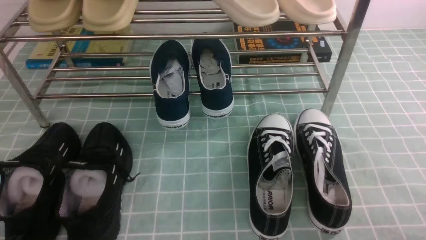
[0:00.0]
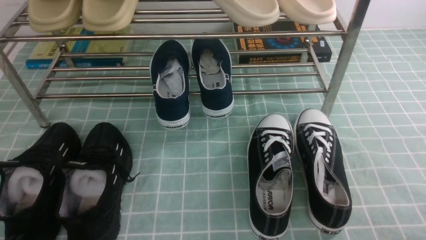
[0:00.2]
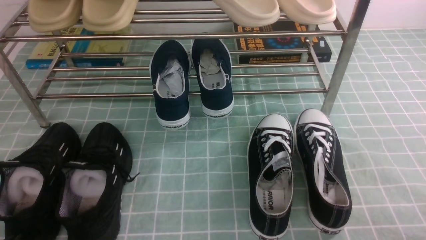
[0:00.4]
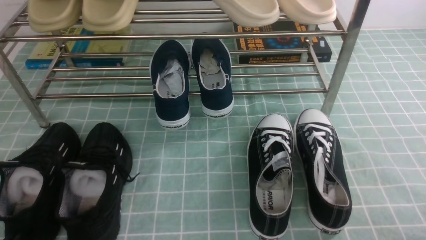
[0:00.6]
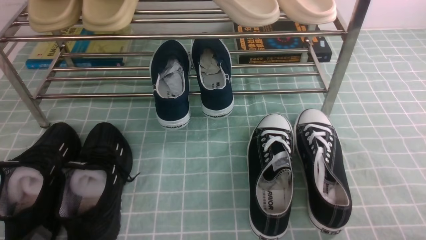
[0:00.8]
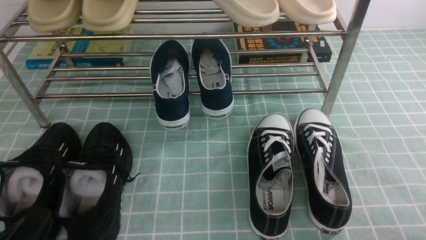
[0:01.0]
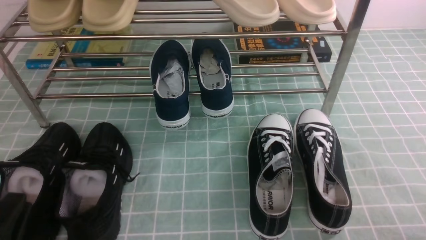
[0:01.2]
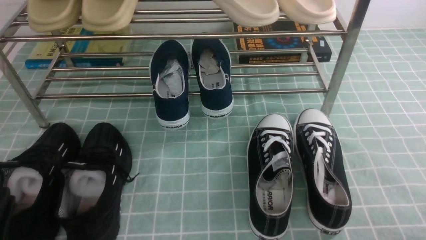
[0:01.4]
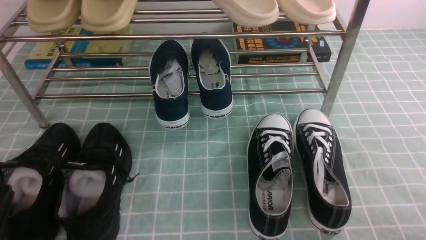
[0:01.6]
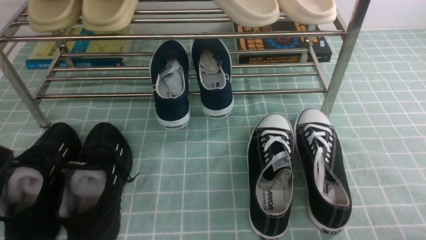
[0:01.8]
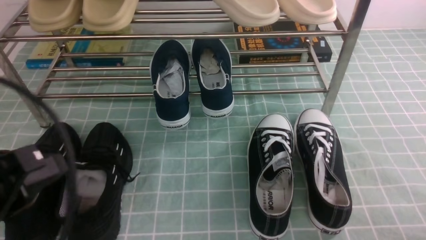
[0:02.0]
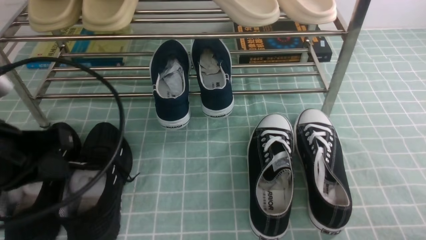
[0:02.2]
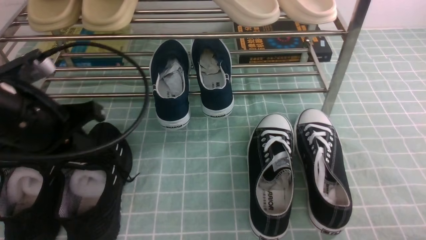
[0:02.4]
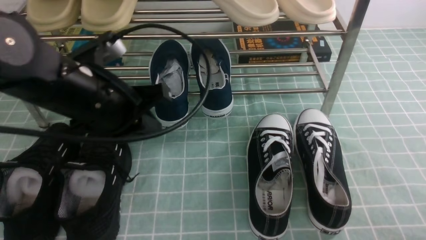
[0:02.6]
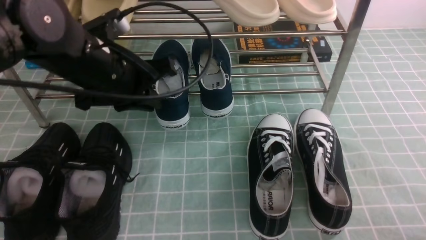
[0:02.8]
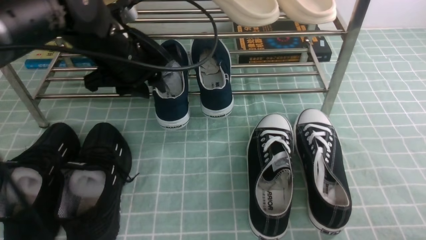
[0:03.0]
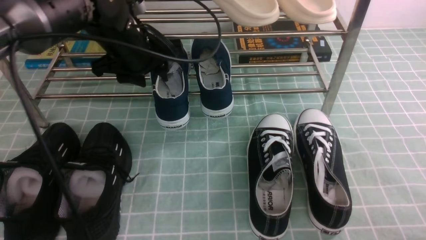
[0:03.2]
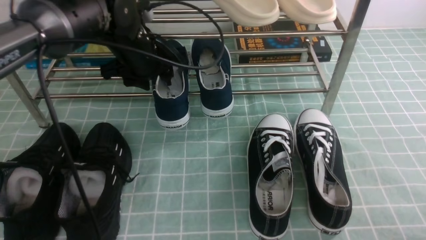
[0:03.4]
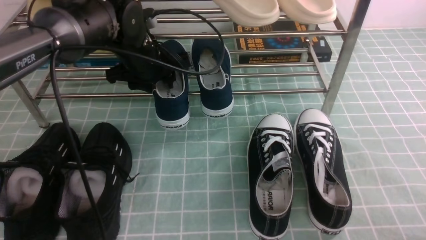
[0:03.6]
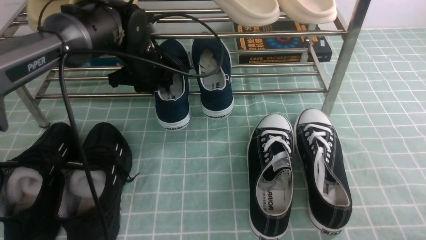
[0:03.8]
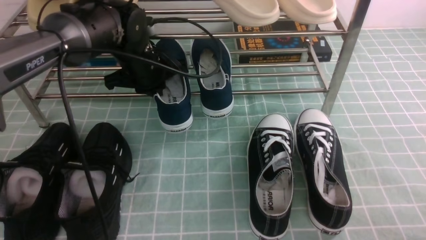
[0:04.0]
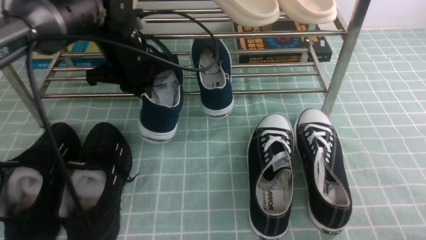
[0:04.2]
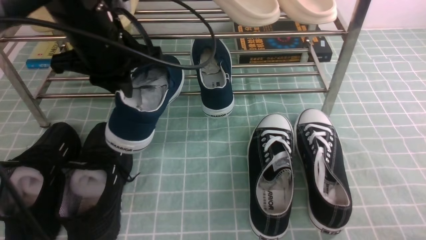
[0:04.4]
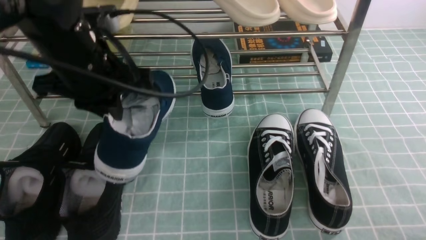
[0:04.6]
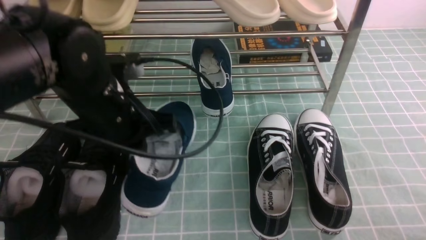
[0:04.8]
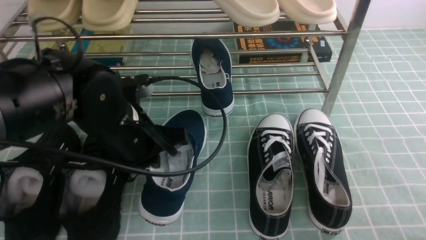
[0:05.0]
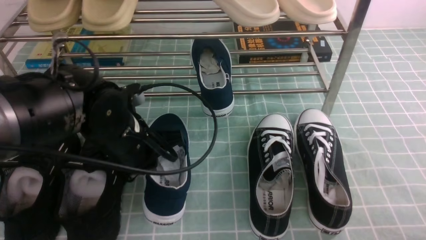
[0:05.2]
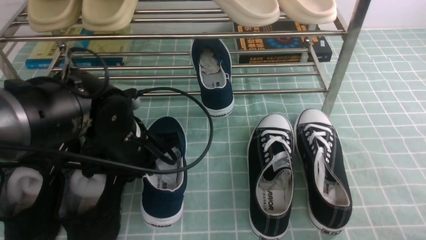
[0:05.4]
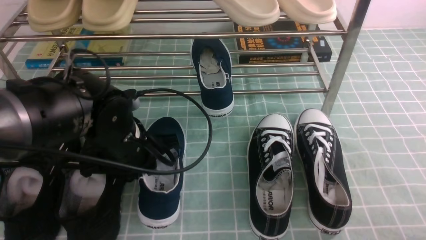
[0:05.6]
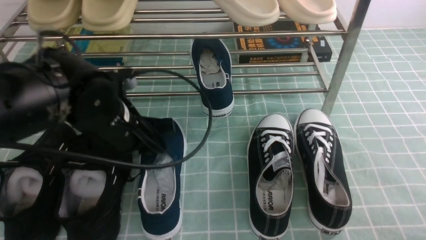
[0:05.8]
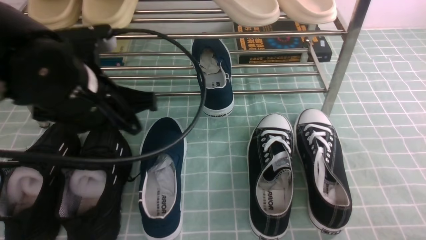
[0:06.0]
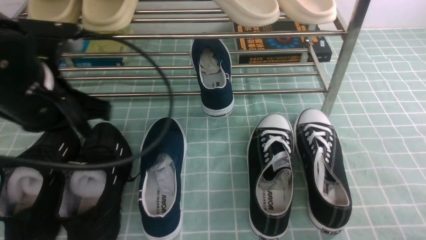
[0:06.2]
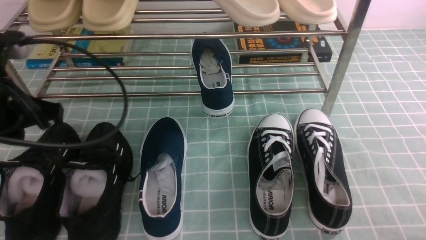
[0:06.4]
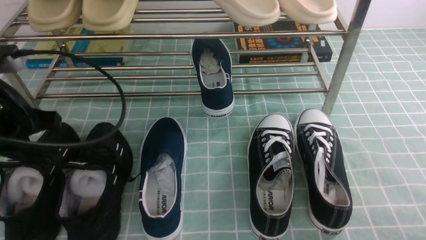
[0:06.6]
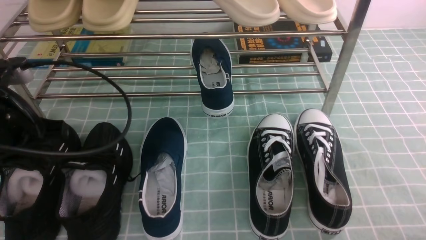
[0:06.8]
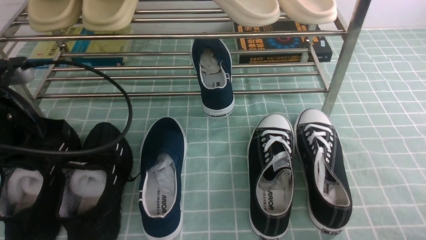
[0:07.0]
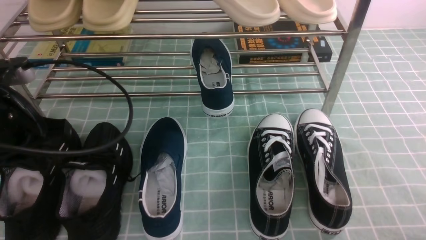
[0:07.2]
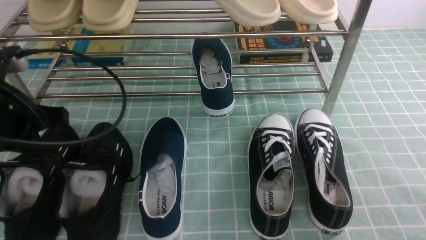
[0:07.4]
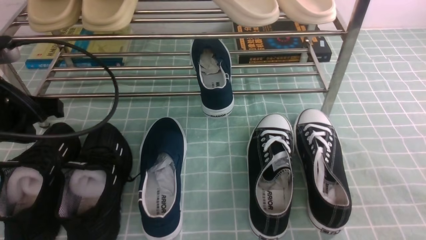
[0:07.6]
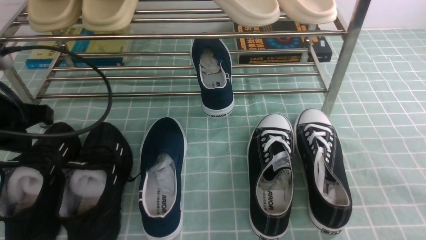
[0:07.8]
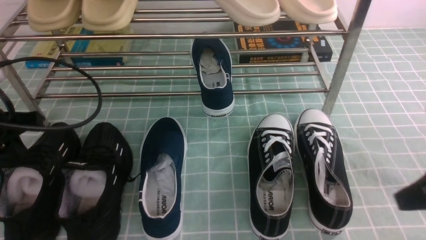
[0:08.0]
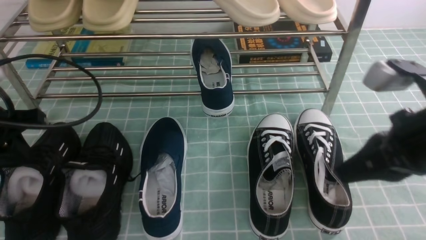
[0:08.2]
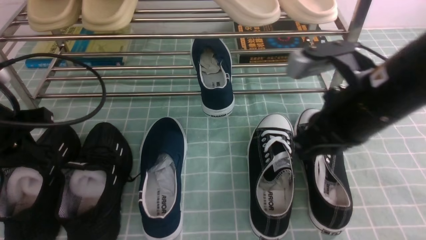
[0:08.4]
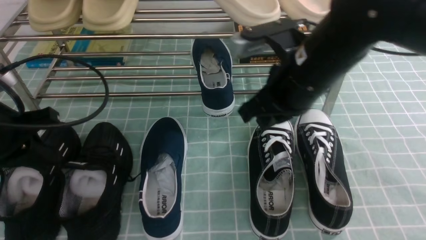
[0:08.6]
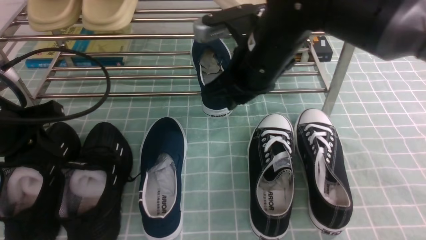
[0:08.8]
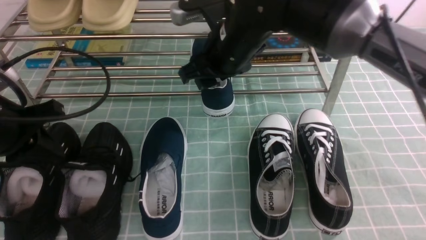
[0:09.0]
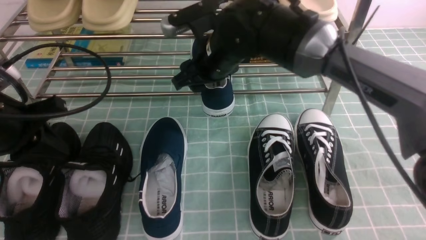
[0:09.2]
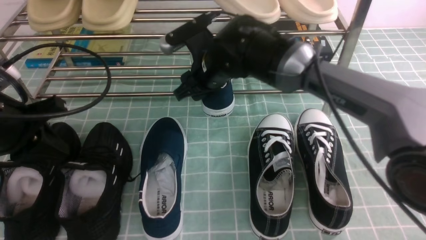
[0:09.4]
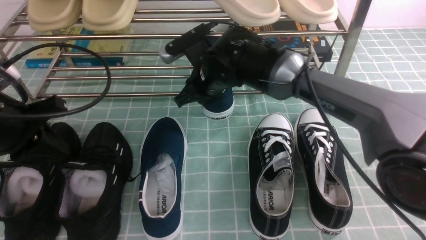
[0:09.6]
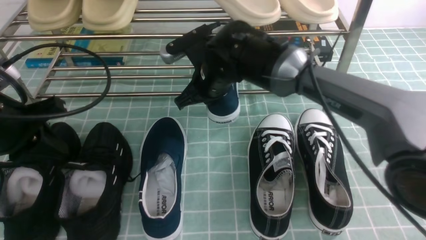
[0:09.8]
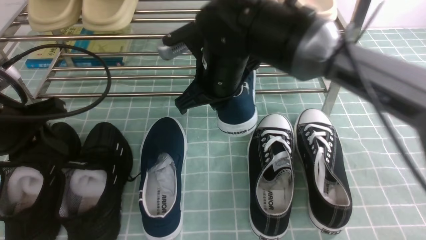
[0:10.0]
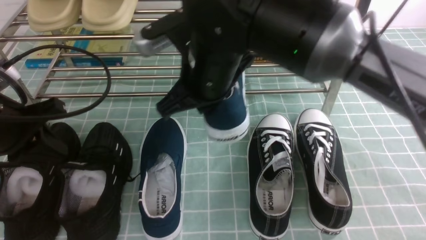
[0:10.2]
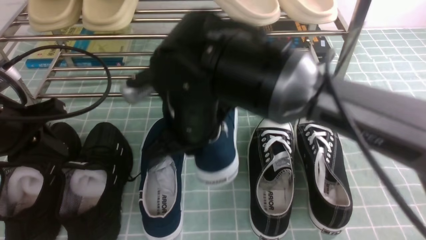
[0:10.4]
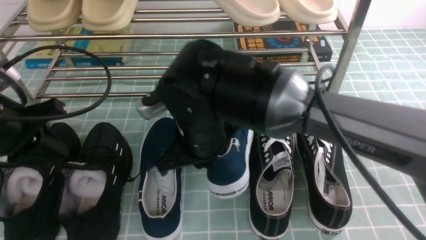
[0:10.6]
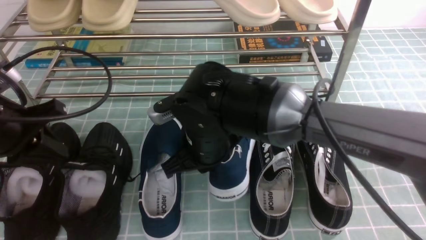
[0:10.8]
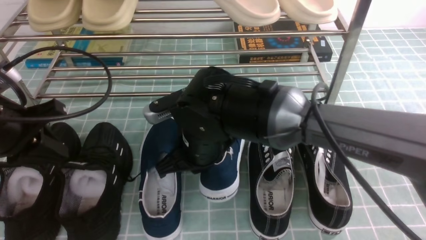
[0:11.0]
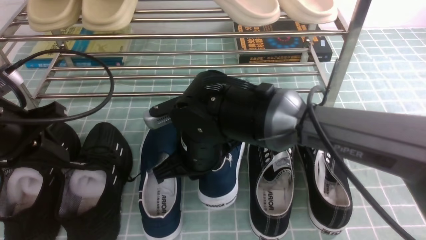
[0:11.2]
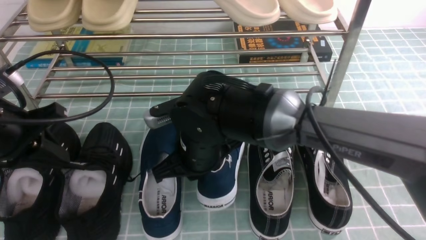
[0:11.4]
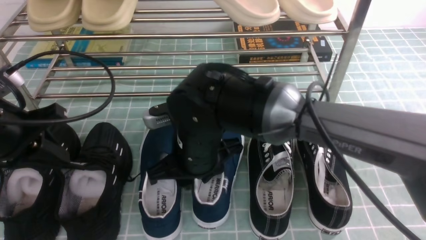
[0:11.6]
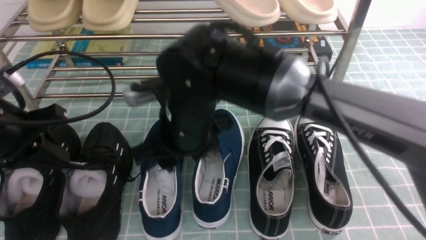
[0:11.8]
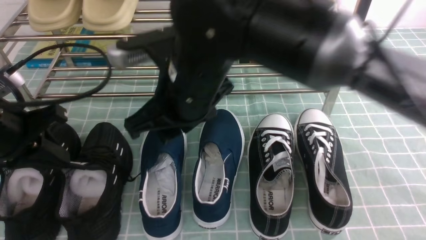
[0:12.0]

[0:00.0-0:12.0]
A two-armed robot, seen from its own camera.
Step, 0:00.0 to 0:04.0: use the left arm to clamp a shoe in the middle of the shoe rack.
Step, 0:04.2 to 0:05.8: Use your left arm to remove the clamped shoe from the shoe rack and put it down.
Step, 0:06.0 to 0:09.6: use the left arm to clamp a shoe in the middle of the shoe rack.
0:00.0 to 0:01.6: The left gripper heads upward, covering some 5 cm.
0:01.6 to 0:03.0: The left gripper is displaced forward and to the right by roughly 30 cm, and opens.
0:03.0 to 0:04.4: The left gripper moves roughly 5 cm forward and comes back, and closes up.
0:04.4 to 0:06.0: The left gripper shifts some 10 cm backward, travels downward and back again, roughly 10 cm each way, and opens.
0:06.0 to 0:07.6: The left gripper travels to the left by about 10 cm, and closes its fingers; the right gripper is displaced upward by some 10 cm, and closes.
0:07.6 to 0:09.0: The right gripper goes some 40 cm forward and to the left, and opens its fingers.
0:09.0 to 0:10.4: The right gripper is displaced backward and to the left by about 10 cm, and closes.
0:10.4 to 0:12.0: The right gripper is displaced upward by about 5 cm, and opens its fingers.

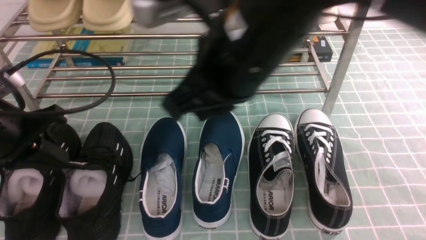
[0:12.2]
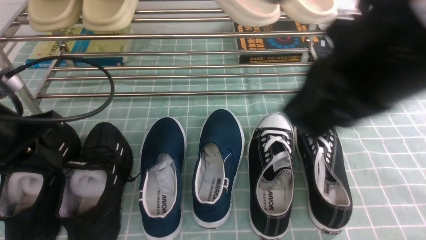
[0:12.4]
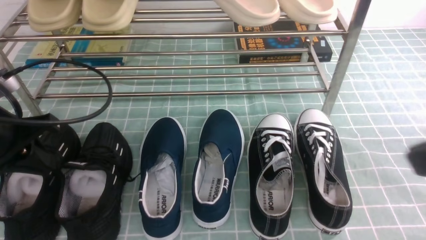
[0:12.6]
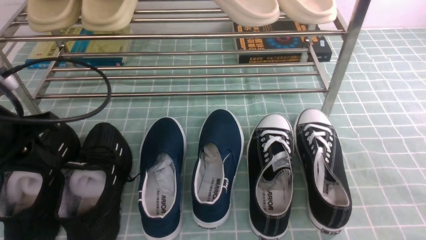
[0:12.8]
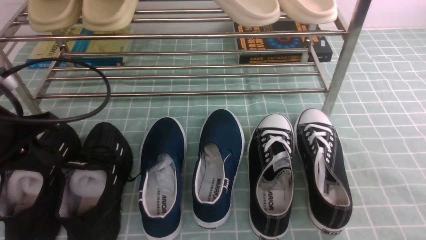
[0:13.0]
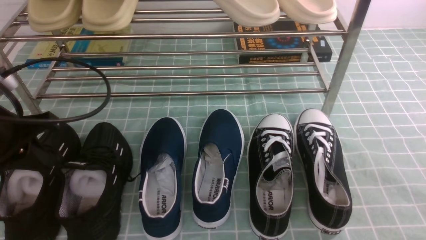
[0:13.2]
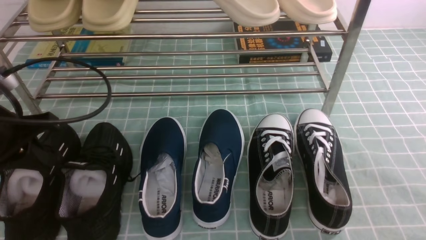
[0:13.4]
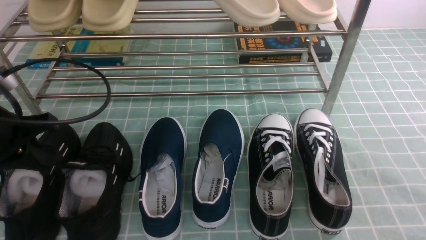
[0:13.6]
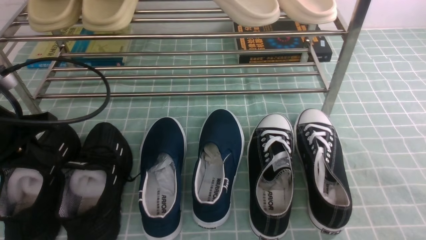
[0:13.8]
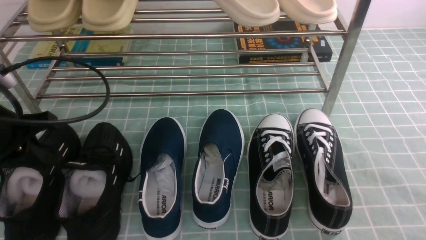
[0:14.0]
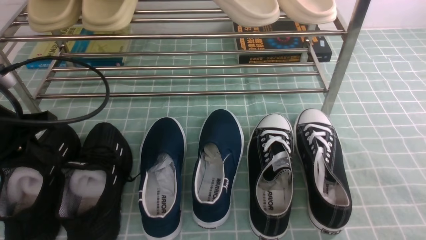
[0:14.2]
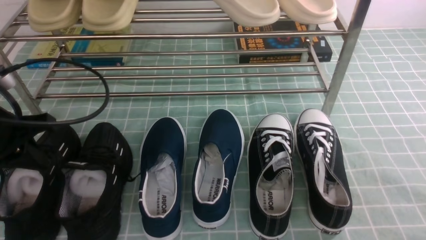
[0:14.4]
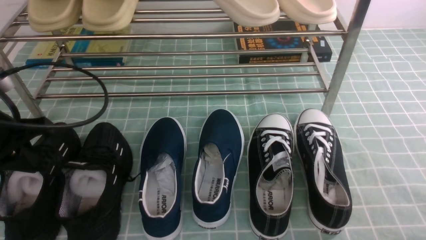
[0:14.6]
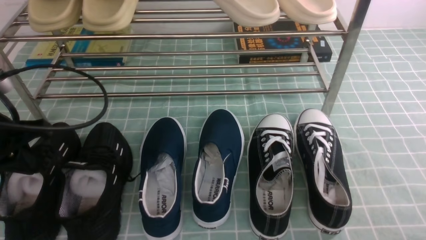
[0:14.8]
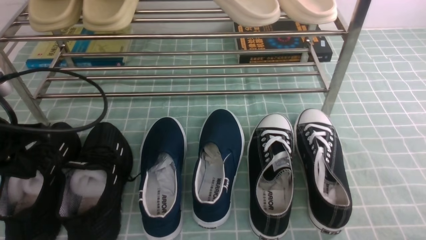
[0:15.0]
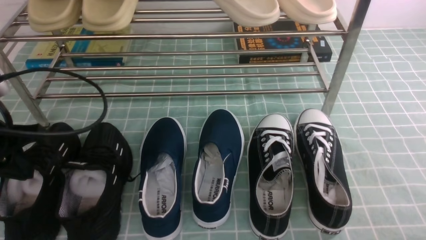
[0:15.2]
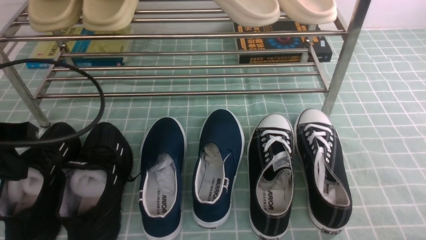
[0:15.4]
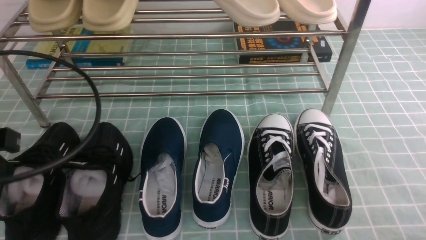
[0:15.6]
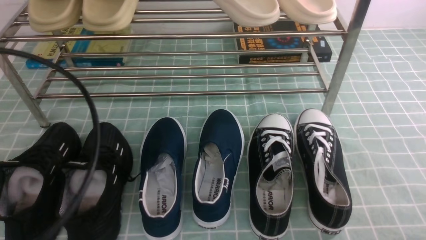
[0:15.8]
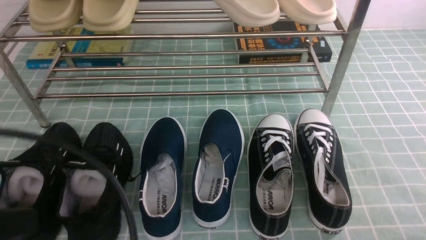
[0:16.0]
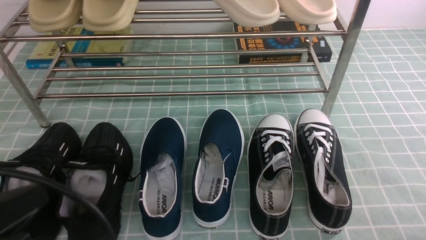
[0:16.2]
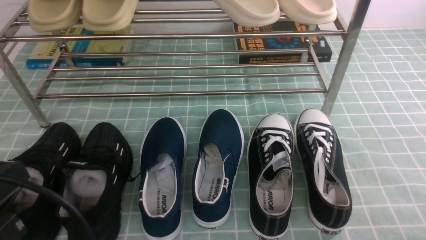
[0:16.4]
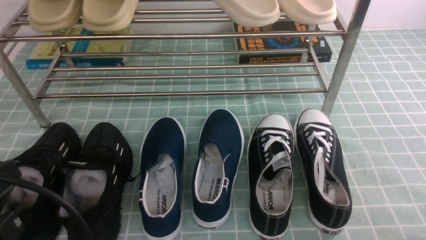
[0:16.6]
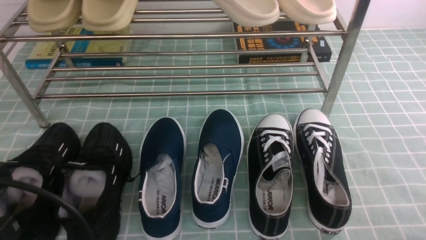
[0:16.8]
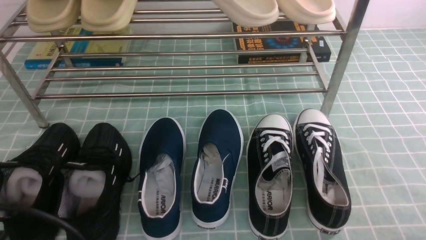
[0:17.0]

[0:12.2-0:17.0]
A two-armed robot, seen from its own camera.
0:12.2 to 0:13.8: The right gripper is displaced to the right and backward by roughly 30 cm.
0:13.8 to 0:15.4: The left gripper ends up some 5 cm from where it was.
0:15.4 to 0:17.0: The left gripper is displaced backward by about 15 cm.
